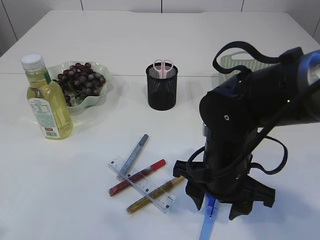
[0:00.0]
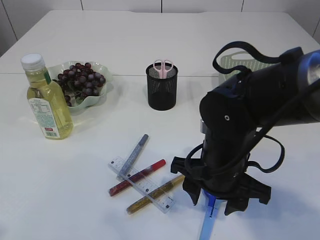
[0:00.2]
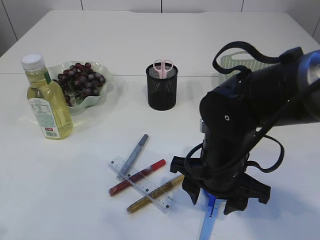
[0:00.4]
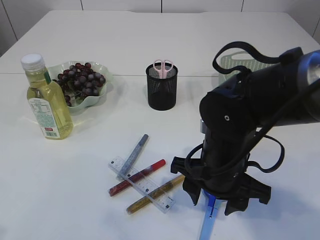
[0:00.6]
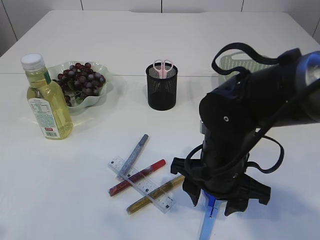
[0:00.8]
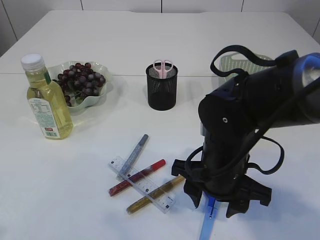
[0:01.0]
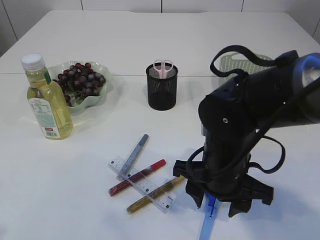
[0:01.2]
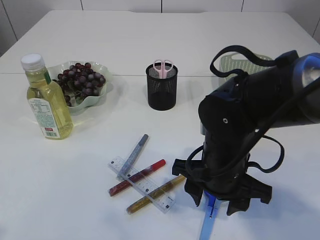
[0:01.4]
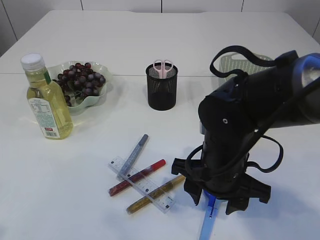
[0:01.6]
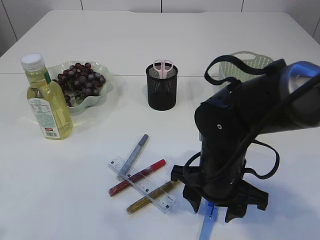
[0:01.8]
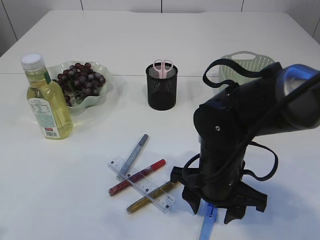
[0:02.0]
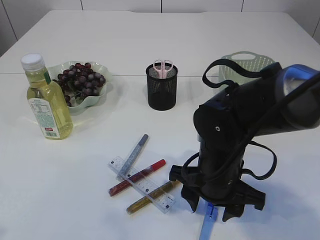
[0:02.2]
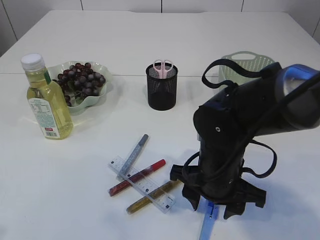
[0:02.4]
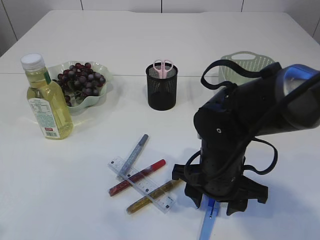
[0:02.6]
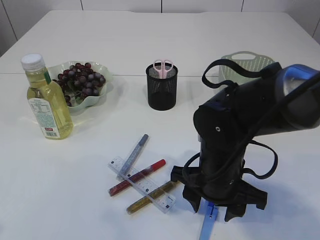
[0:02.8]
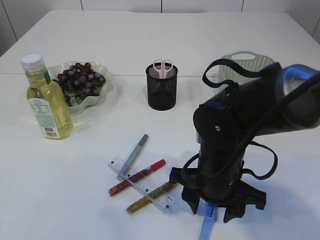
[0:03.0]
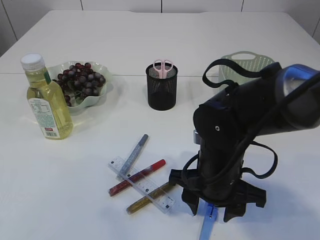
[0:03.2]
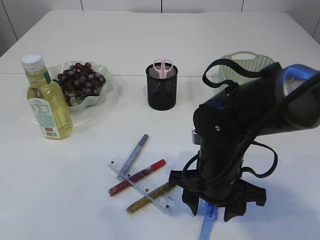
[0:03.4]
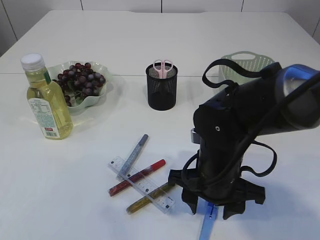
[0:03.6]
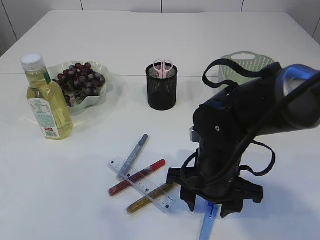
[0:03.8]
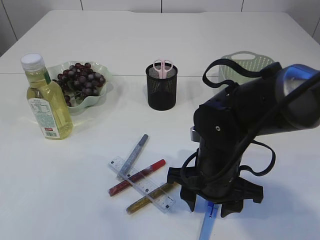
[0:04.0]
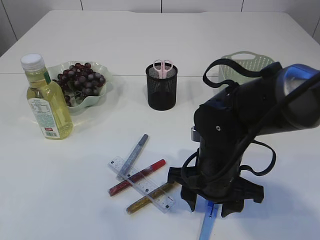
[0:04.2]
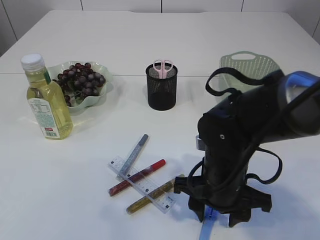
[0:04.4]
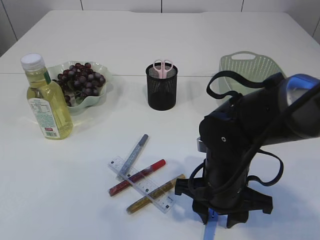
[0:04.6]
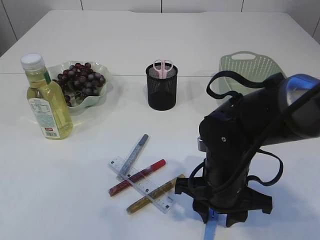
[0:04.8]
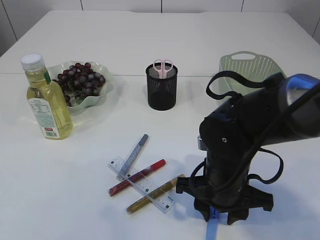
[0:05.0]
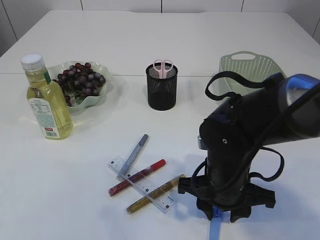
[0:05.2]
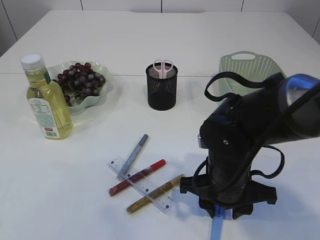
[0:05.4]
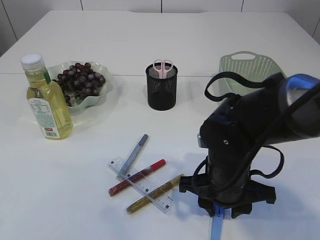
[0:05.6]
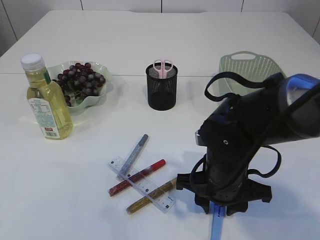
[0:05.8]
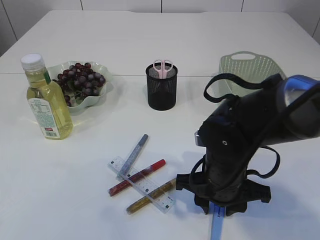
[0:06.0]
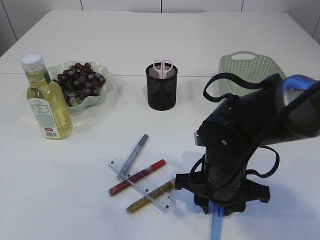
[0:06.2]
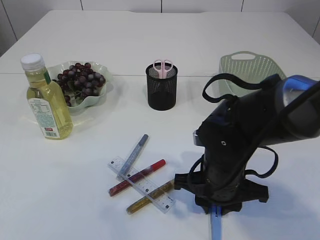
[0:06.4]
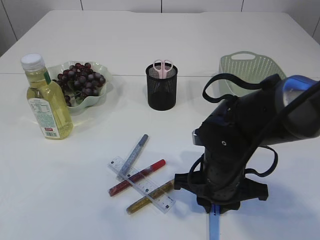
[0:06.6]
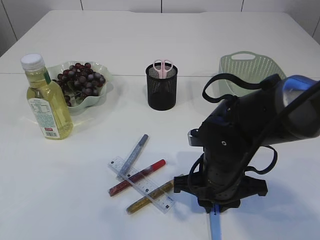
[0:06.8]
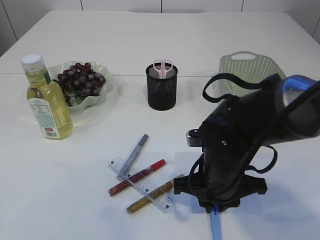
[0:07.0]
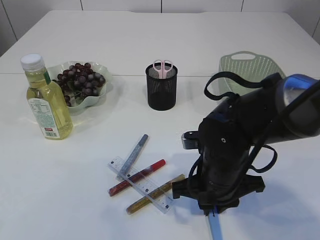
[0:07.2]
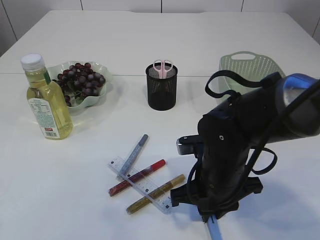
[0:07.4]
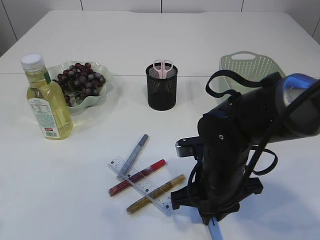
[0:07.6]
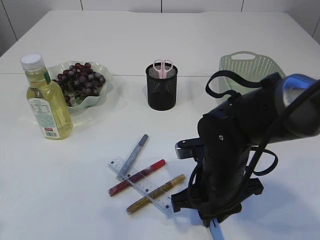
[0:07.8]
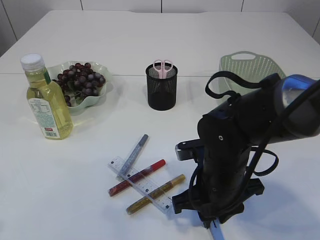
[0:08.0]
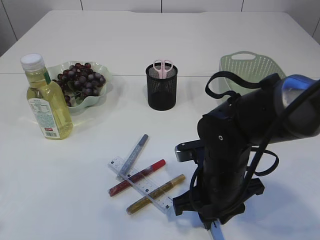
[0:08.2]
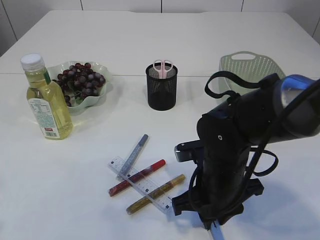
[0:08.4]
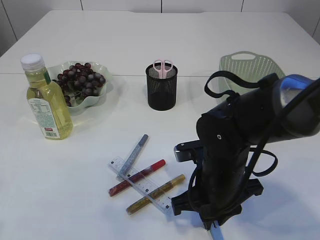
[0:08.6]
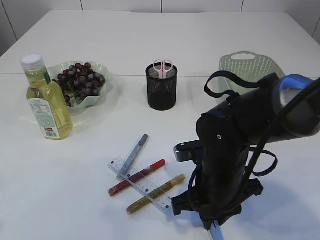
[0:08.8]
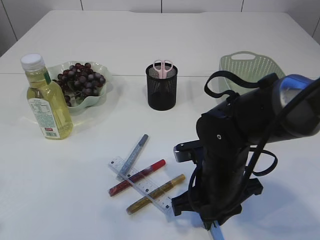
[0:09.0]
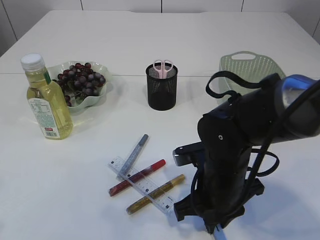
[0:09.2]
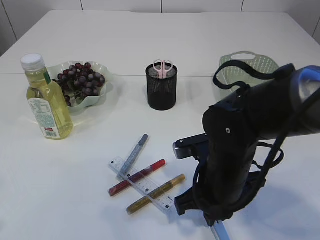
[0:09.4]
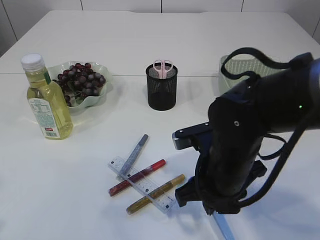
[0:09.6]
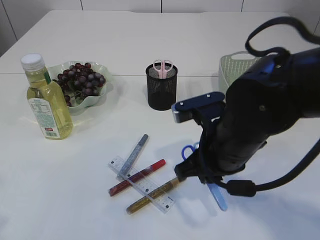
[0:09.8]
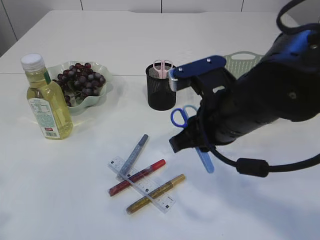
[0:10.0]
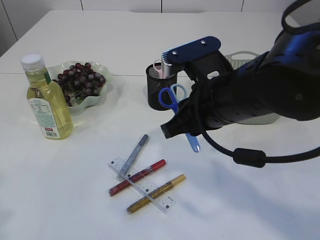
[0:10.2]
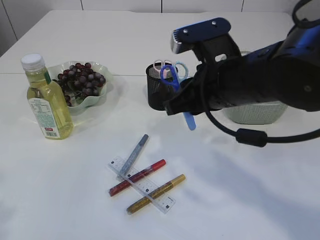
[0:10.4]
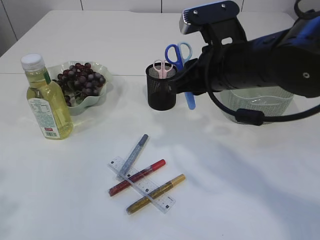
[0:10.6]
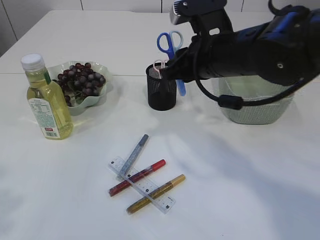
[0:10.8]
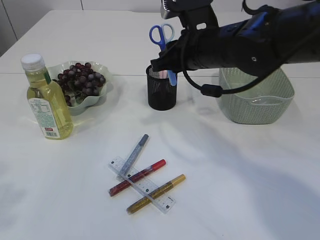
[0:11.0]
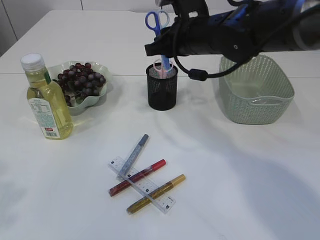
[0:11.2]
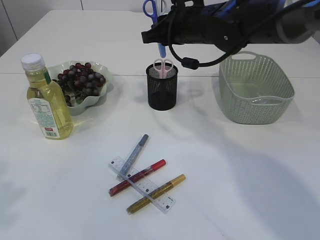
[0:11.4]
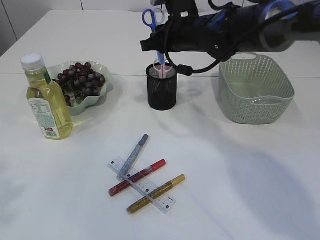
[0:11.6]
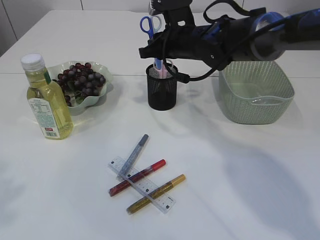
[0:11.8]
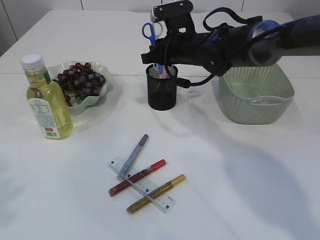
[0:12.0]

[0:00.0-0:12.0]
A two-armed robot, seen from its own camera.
Step, 0:00.0 to 0:10.2: pick up the blue scissors.
0:00.0 to 0:01.6: Both grippers stay about where they are.
0:01.6 to 0:06.0: There are only small adjustments of the grippers.
0:06.0 to 0:07.6: The right gripper closes.
0:07.6 to 0:09.0: Neither gripper changes place.
0:09.0 to 0:10.4: The right gripper moves upward, roughly 15 cm.
0:10.4 to 0:12.0: The right gripper moves forward, some 20 cm.

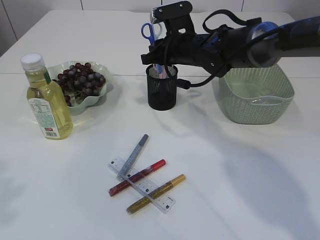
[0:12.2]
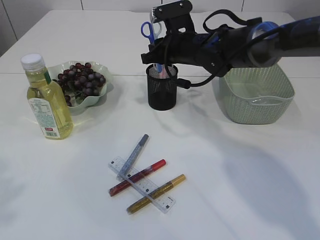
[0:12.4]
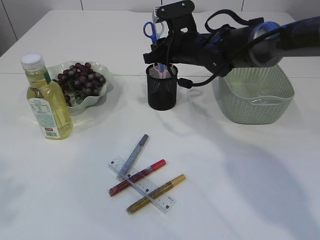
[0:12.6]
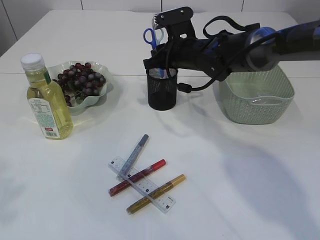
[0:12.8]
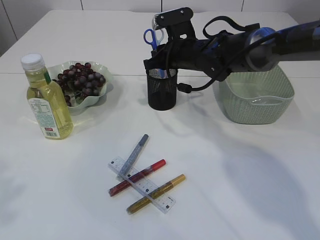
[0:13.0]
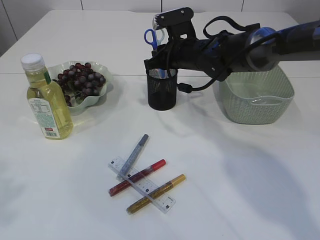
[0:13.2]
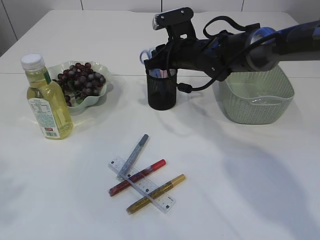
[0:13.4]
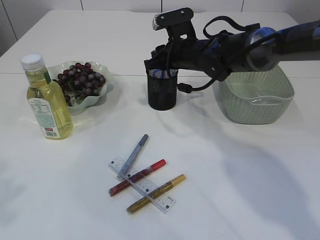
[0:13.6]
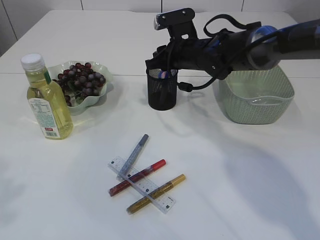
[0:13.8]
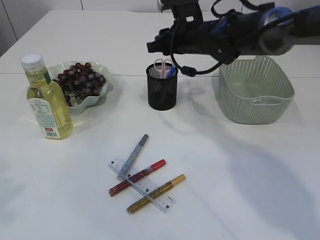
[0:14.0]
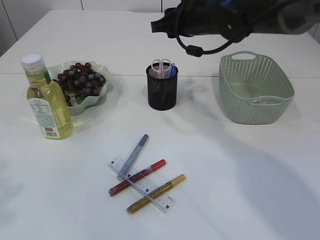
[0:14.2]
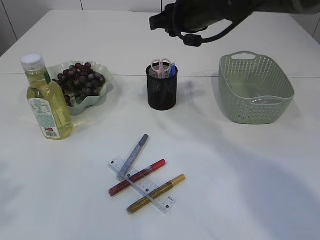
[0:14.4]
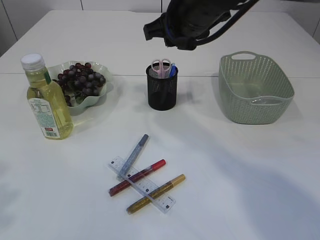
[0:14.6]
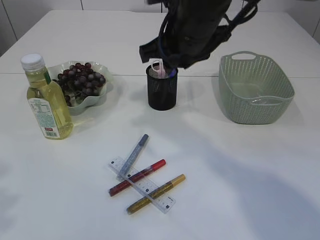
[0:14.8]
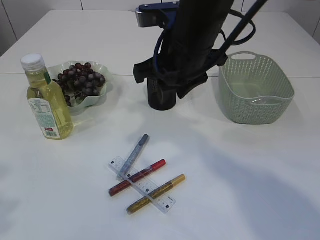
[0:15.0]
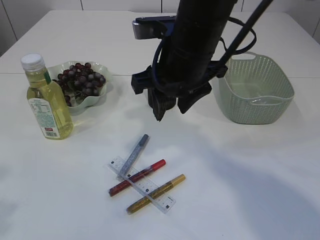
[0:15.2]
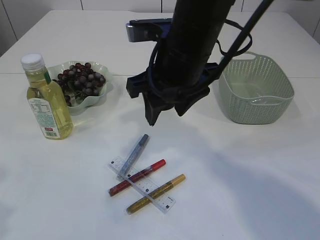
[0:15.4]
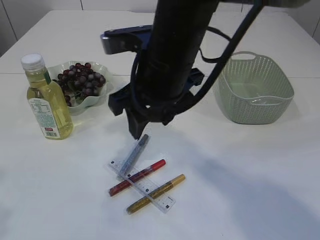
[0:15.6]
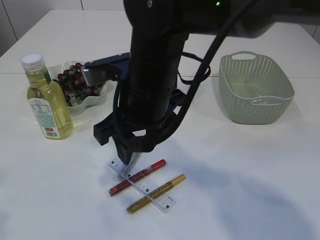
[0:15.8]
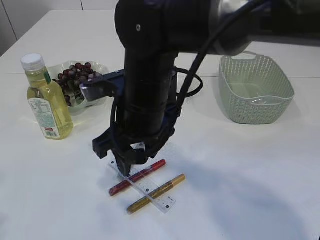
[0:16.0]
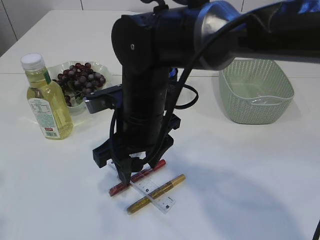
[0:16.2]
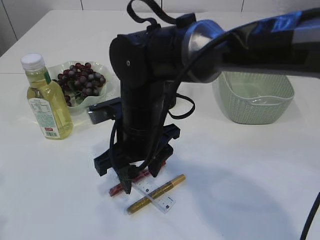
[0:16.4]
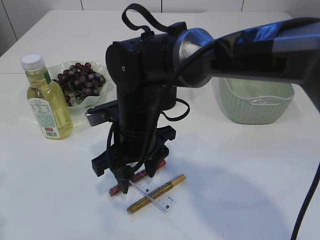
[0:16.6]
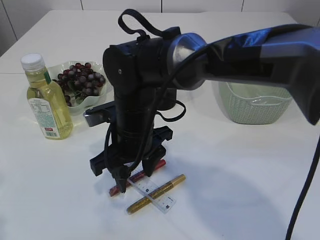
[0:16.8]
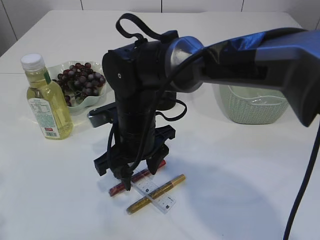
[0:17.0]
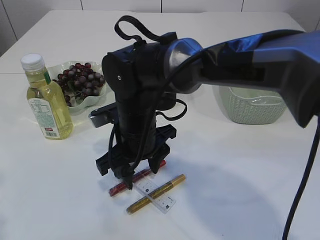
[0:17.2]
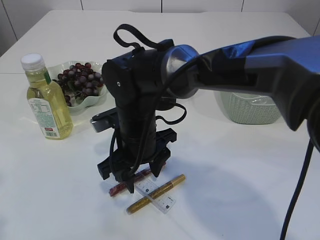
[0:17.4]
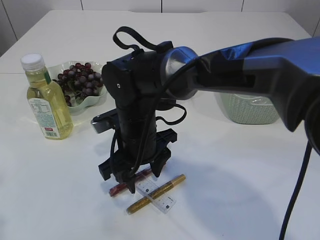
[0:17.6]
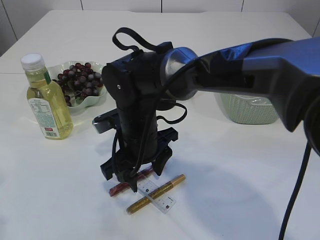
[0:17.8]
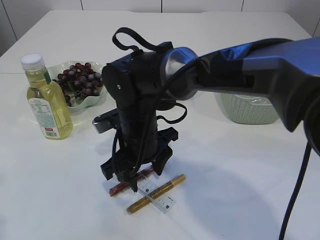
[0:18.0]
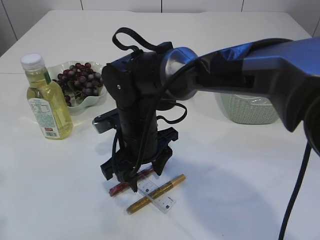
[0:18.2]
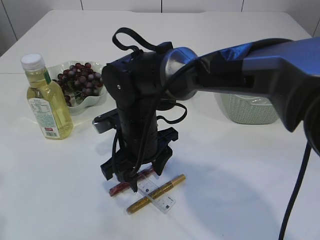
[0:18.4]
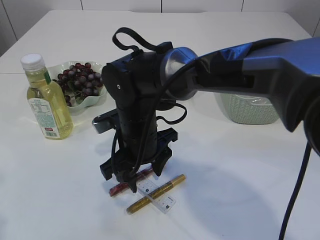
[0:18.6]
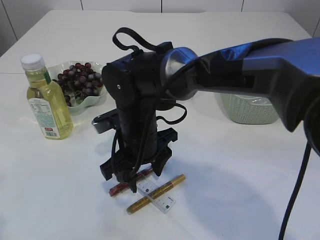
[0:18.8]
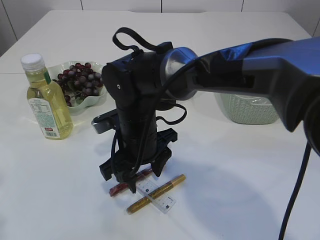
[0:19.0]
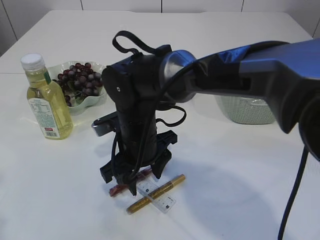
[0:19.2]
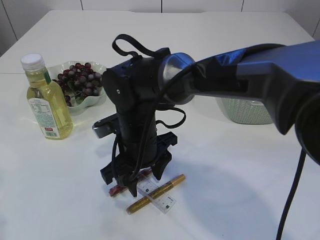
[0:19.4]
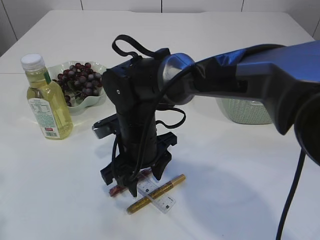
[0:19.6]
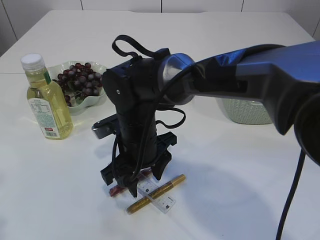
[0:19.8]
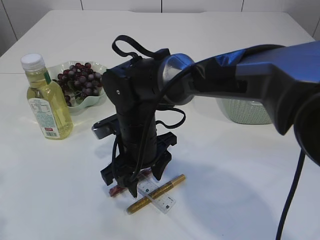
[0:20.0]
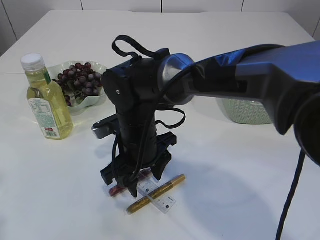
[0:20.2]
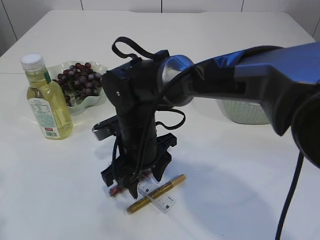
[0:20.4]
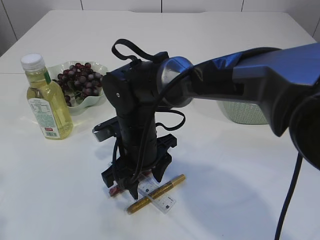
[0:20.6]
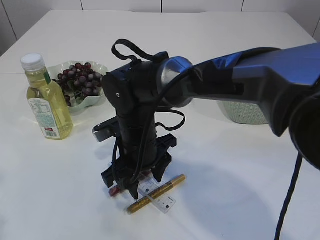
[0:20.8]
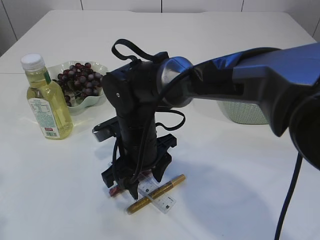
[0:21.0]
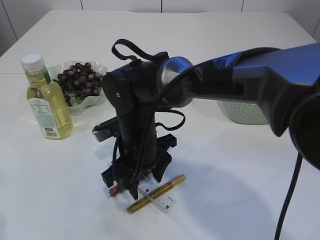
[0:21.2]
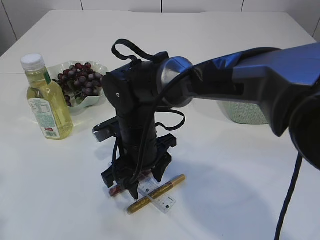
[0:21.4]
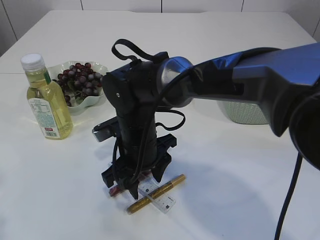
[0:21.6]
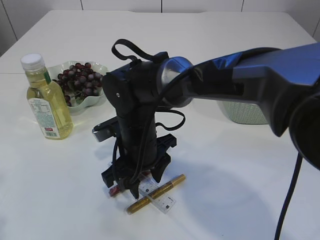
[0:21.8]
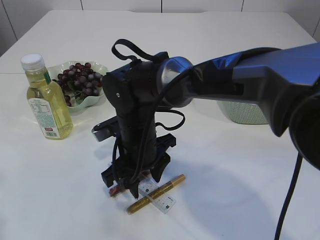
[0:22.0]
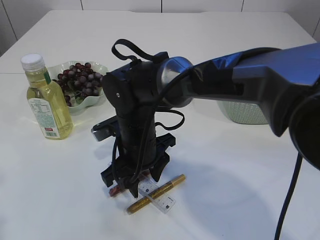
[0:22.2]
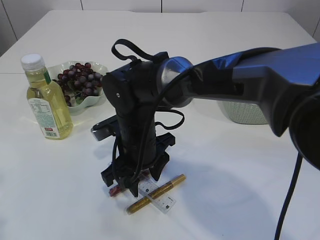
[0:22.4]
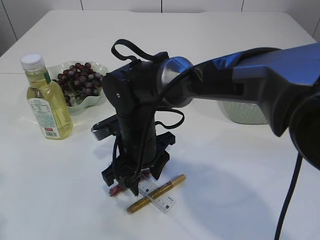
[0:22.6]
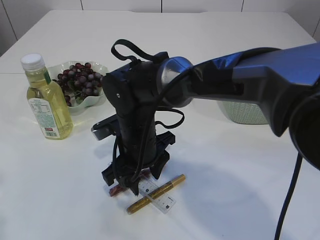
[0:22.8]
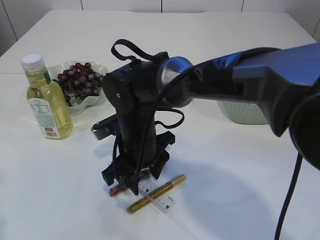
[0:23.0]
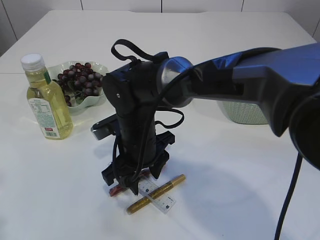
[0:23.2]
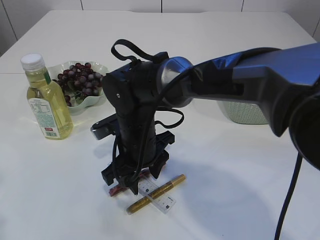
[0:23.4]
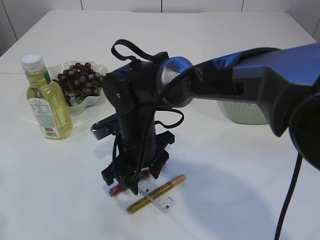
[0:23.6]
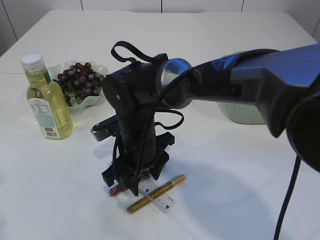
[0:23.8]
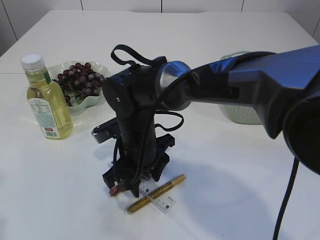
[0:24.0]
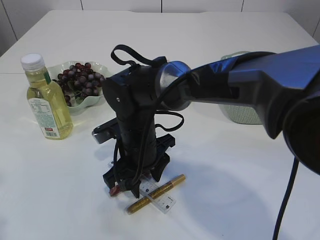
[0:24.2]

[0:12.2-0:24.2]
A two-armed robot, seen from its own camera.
Step, 0:12.2 to 0:14.4: Place the blue scissors into the pen holder.
0:12.2 to 0:13.8: The grippers move only a little.
0:13.8 to 0:15.2: The right gripper is displaced backward and upward by approximately 20 cm.
0:15.2 to 0:16.6: The right gripper moves downward and to the left, approximately 15 cm.
0:16.6 to 0:18.2: The grippers make only small movements.
0:18.2 to 0:19.8: Neither gripper changes place.
0:19.8 to 0:24.2: Both grippers stay about where they are.
